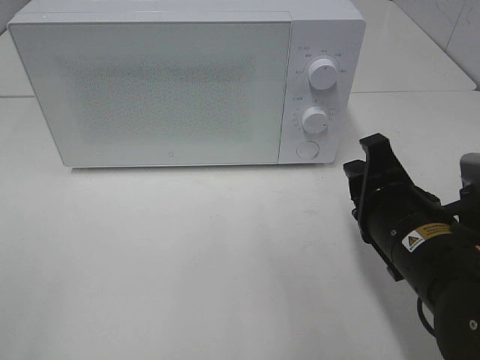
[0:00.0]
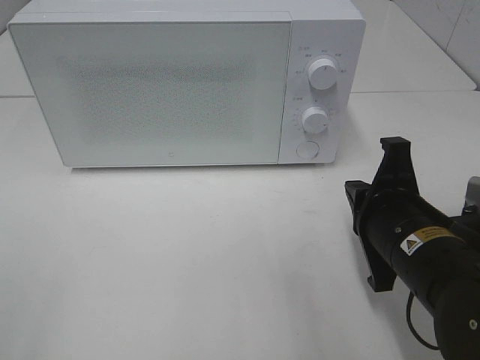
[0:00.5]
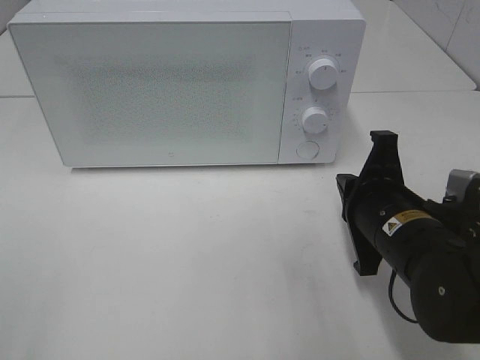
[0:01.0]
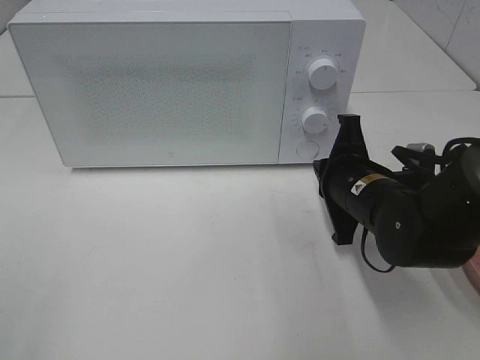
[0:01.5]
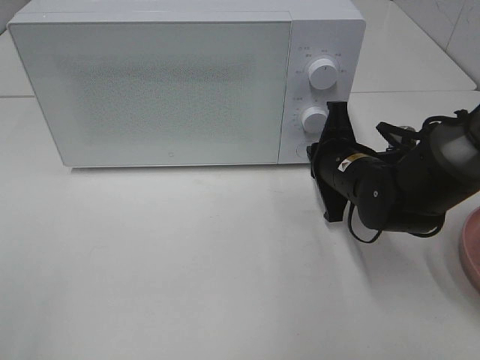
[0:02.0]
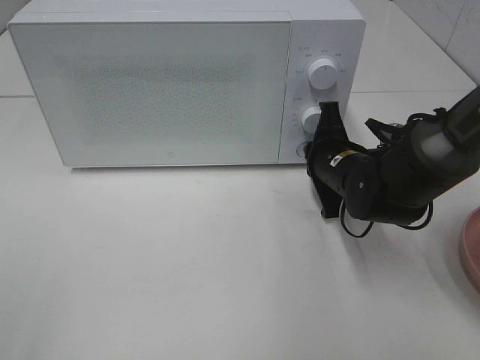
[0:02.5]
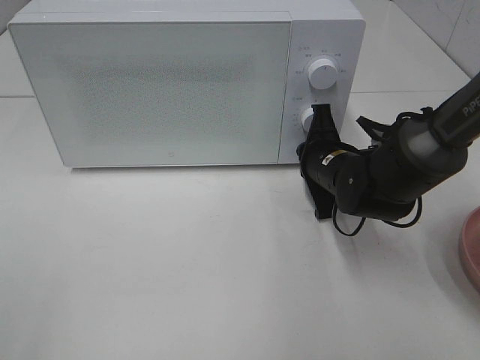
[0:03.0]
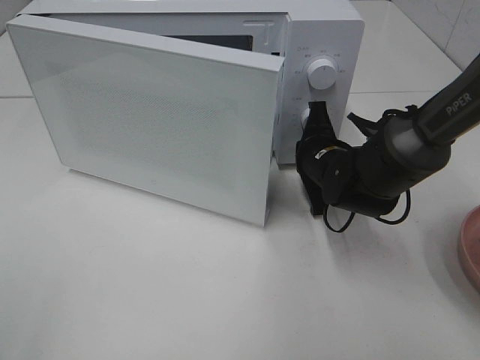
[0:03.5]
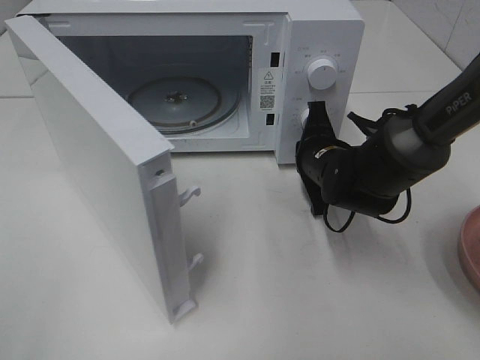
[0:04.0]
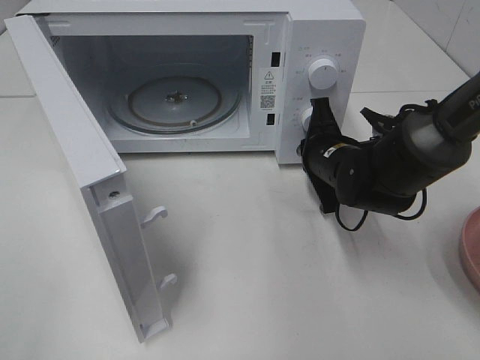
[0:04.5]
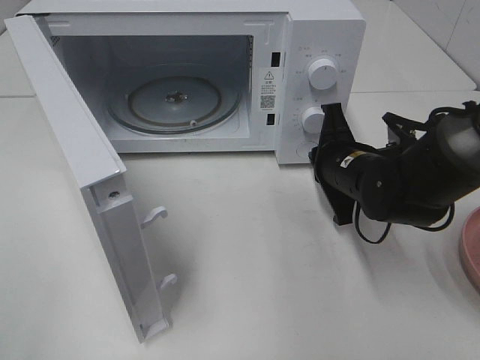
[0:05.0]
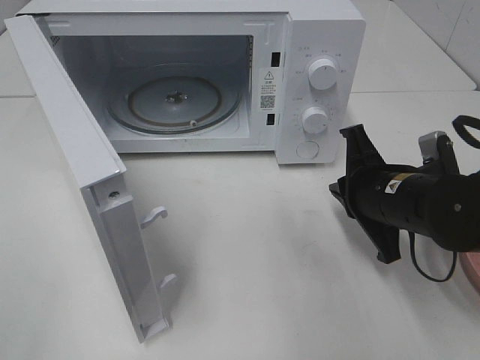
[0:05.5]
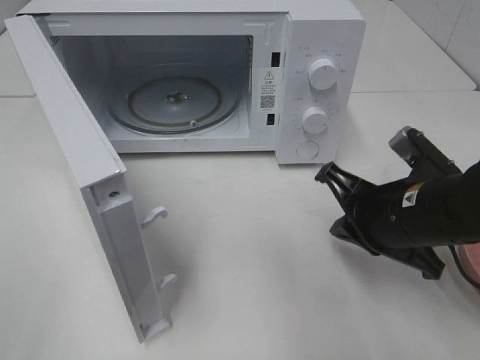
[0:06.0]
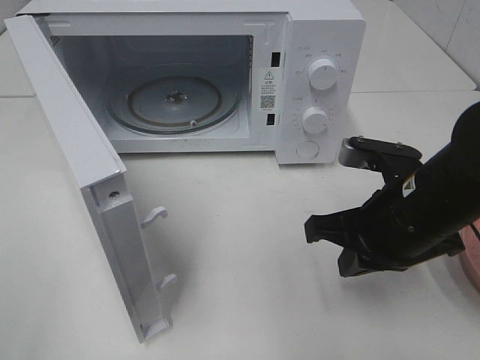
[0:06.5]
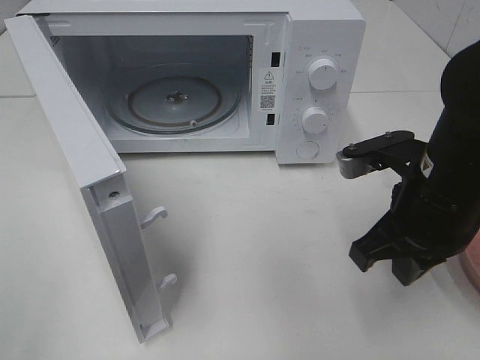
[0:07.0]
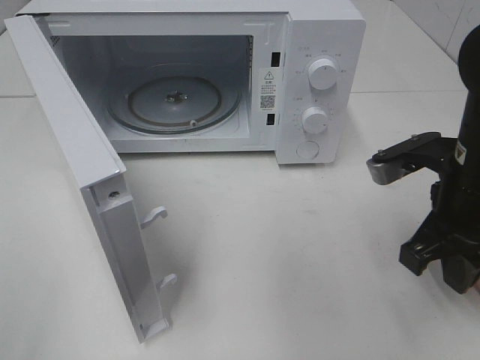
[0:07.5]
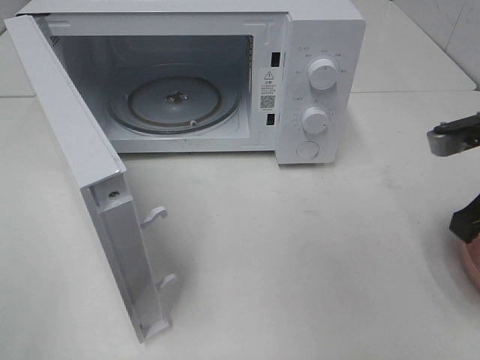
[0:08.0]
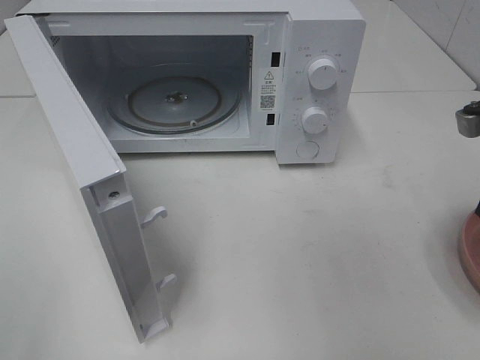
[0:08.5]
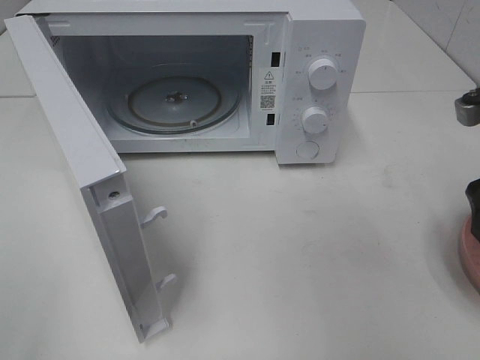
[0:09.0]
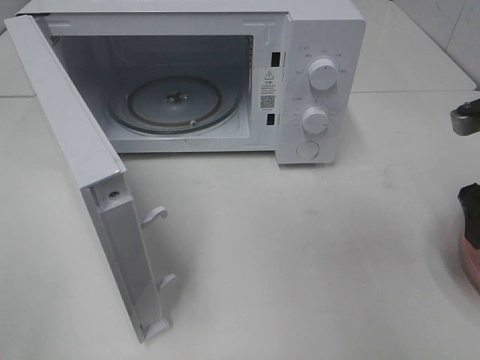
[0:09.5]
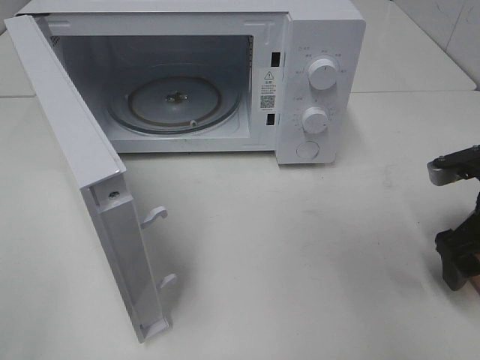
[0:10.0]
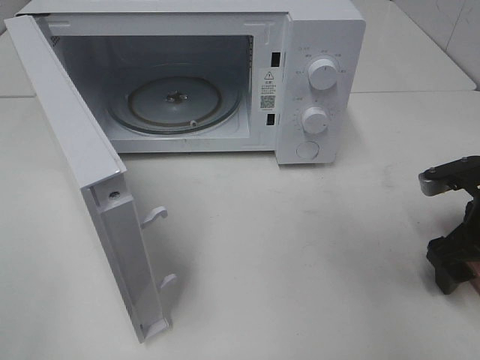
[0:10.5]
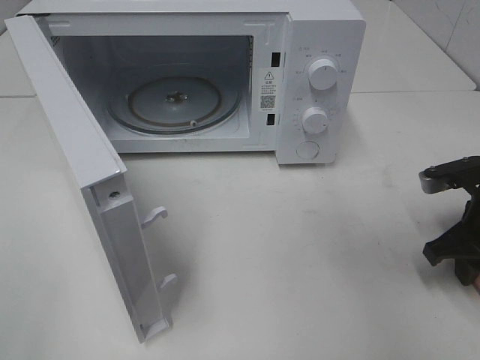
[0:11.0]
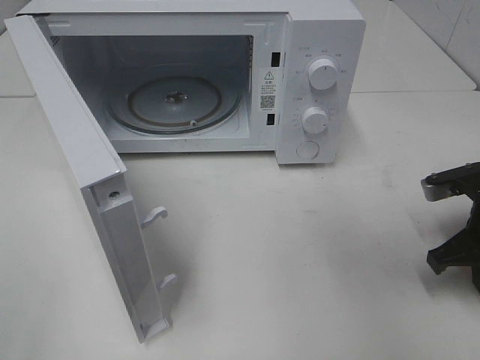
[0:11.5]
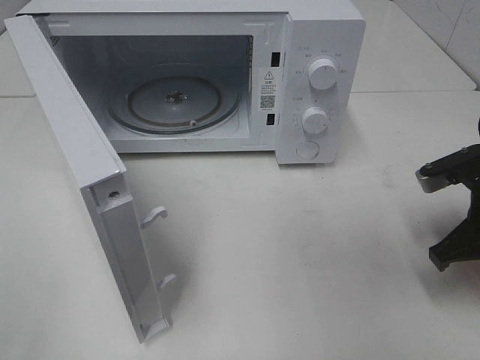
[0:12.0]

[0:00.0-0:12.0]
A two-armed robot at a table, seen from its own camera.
Task of the whole recording: Heat the burger.
Step, 0:00.0 to 0:05.0: Right hand: press the switch.
Step, 0:05.5 to 0:11.5: Right hand: grab the plate with the hamburger.
0:00.0 to 0:02.0: The right gripper travels forward by approximately 15 cm, and closes.
0:04.0 to 0:06.0: The right gripper moves backward and upward, about 15 cm.
0:06.0 to 0:08.0: The right gripper is displaced to the right and upward by about 10 cm.
0:08.0 to 0:10.0: The right gripper goes approximately 10 cm downward, and opens up.
0:10.0 to 0:12.0: The right gripper closes up.

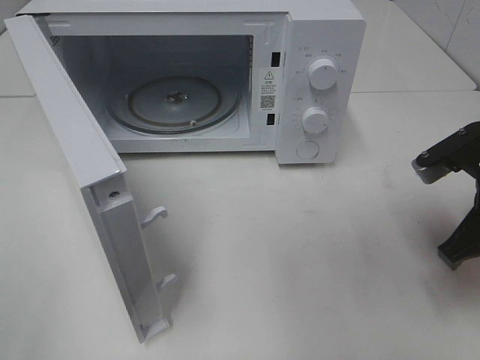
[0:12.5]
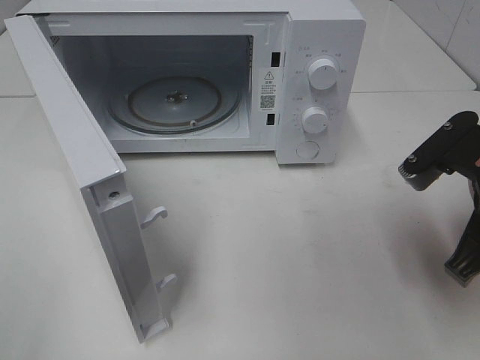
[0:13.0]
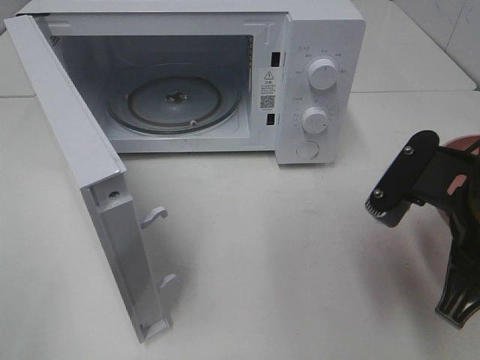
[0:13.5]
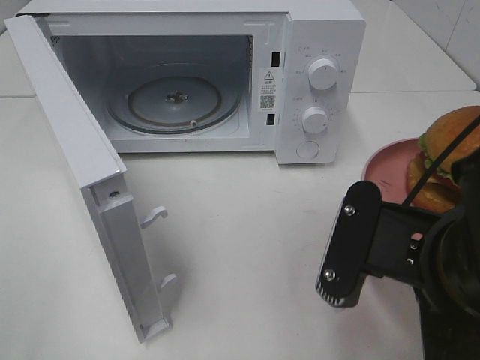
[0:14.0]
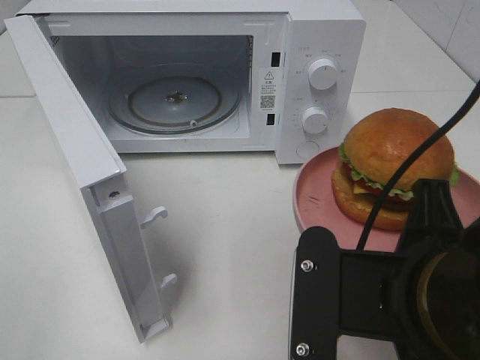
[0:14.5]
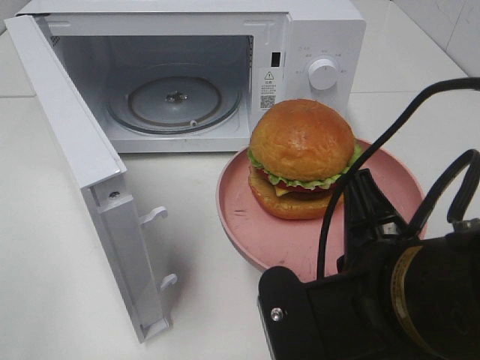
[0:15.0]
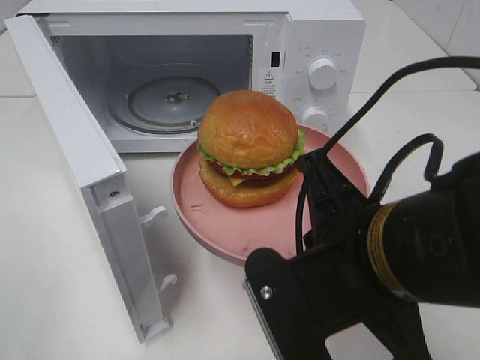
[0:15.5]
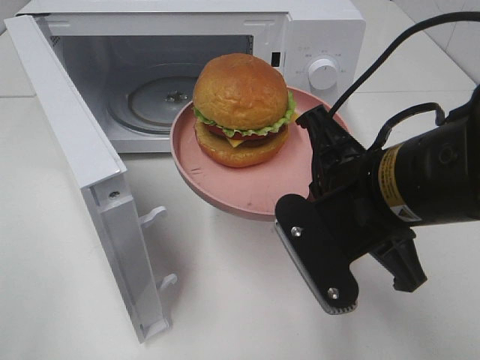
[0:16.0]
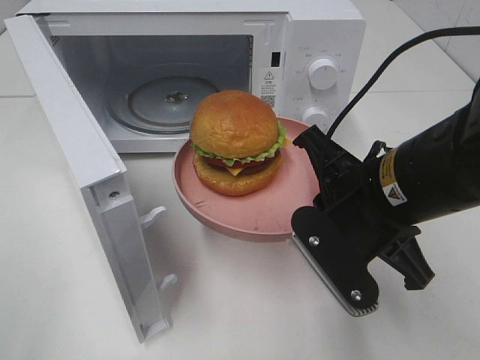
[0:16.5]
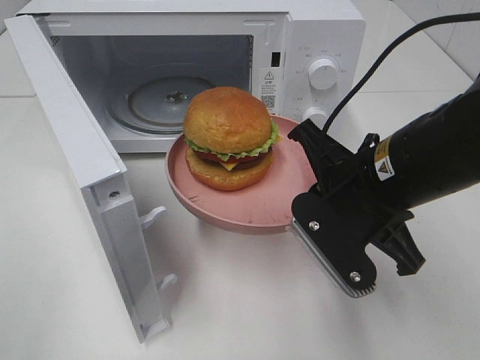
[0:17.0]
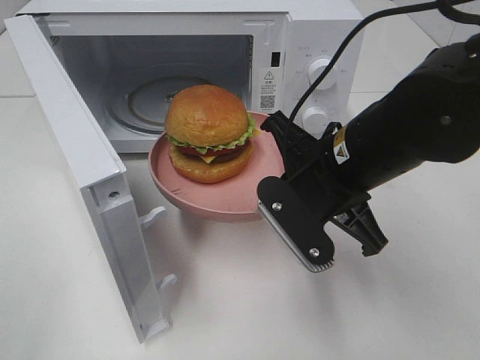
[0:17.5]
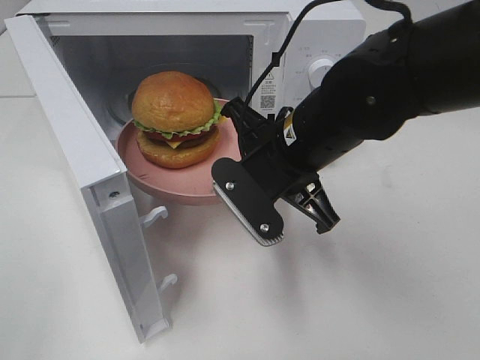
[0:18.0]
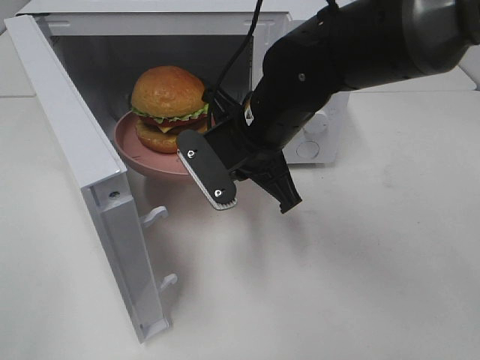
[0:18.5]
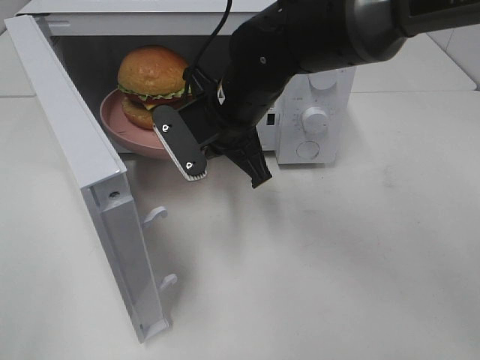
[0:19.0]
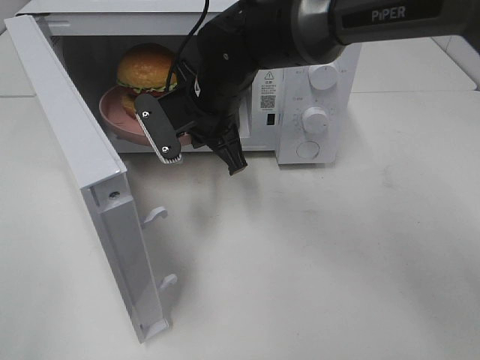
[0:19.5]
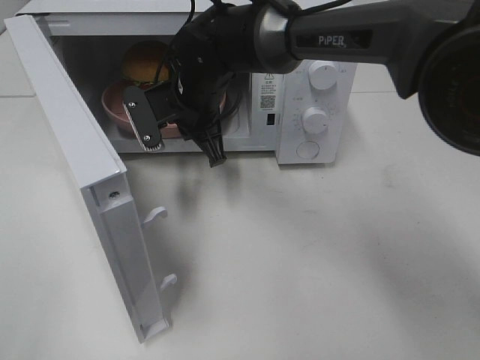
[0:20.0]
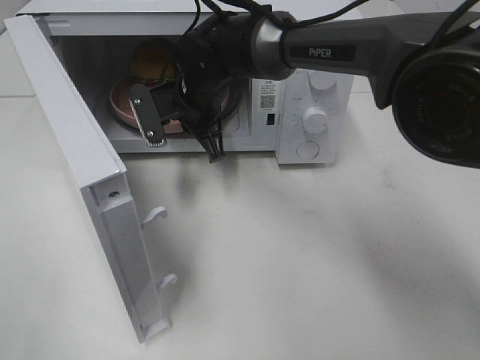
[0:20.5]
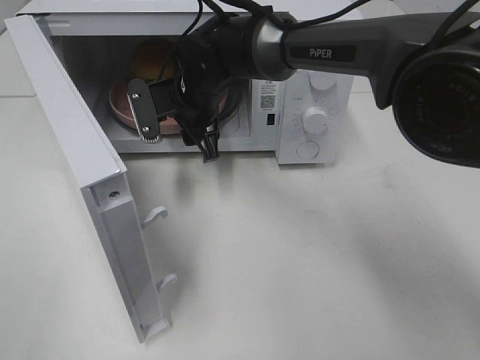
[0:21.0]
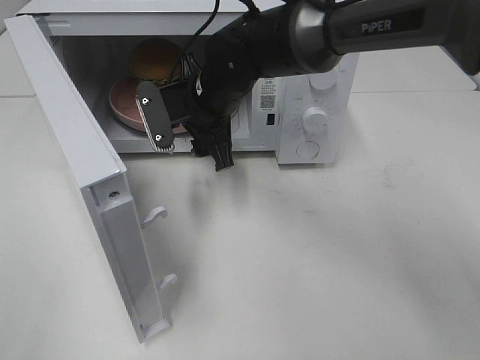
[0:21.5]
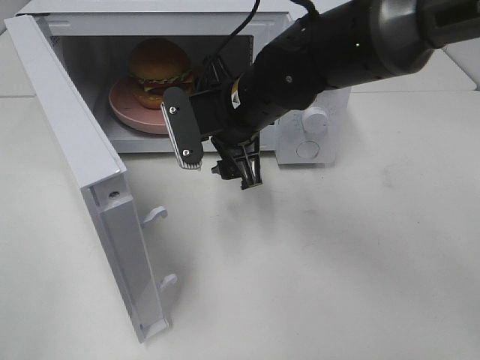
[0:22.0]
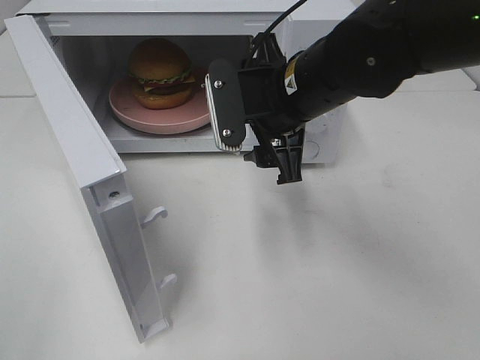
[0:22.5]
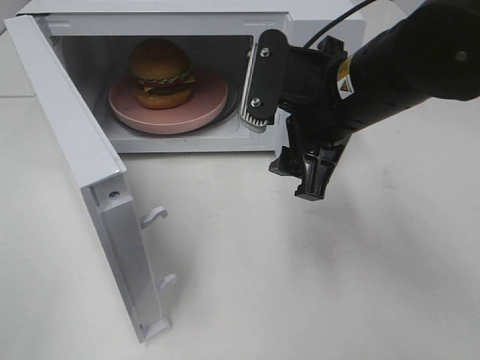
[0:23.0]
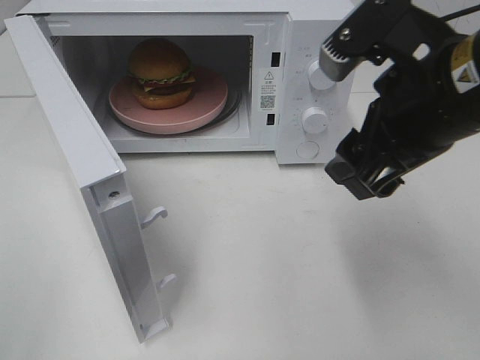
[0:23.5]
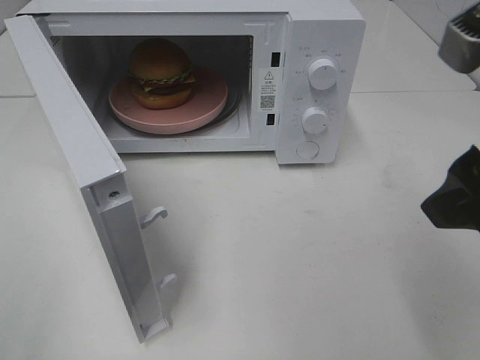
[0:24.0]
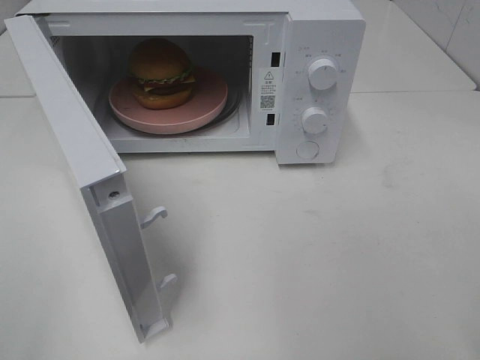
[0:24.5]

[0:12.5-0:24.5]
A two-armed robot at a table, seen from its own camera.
Task of the whole recording: Heat the burger.
Step, 0:12.5 to 0:21.0: Right hand: place the plate in the microwave.
0:12.5 to 0:14.5: The right gripper goes roughly 20 cm to the left and backward.
0:14.5 to 0:16.5: The right gripper is displaced forward by some 10 cm.
0:16.5 to 0:18.5: The right gripper is displaced forward and to the left by approximately 15 cm.
0:18.5 to 0:20.5: The right gripper moves forward and to the left, about 15 cm.
0:20.5 to 0:22.5: The right gripper is displaced backward, to the right and upward by roughly 15 cm, and opens its fingers.
0:22.5 to 0:24.5: The right gripper moves backward, to the right and upward, some 30 cm.

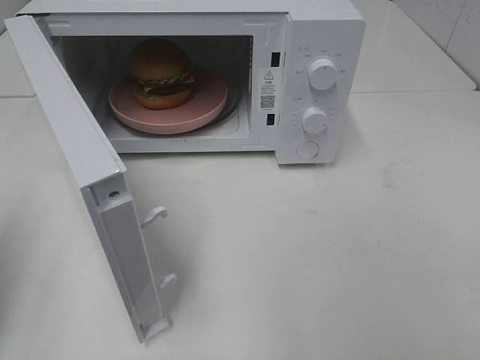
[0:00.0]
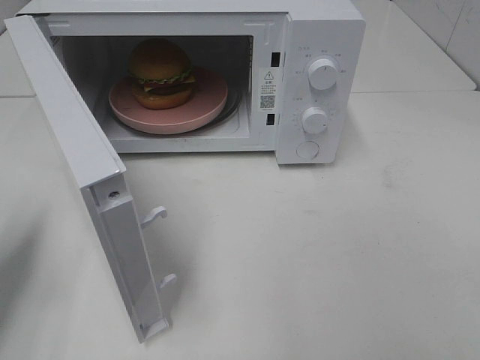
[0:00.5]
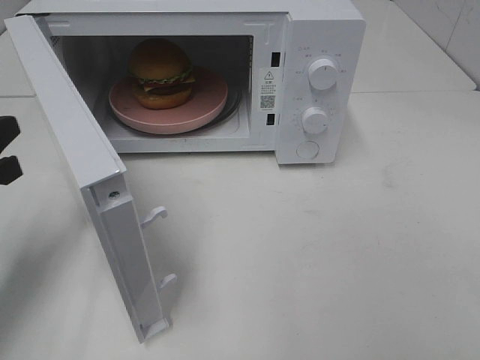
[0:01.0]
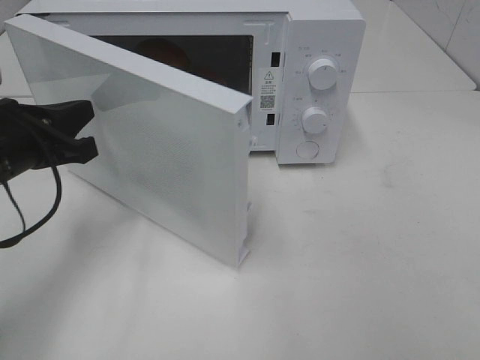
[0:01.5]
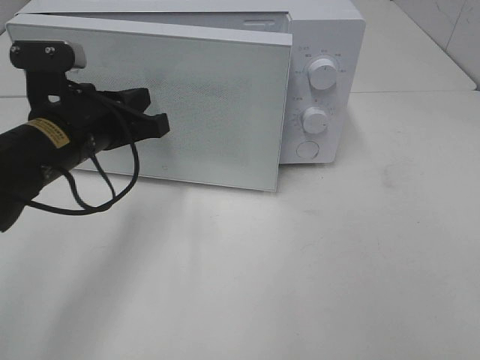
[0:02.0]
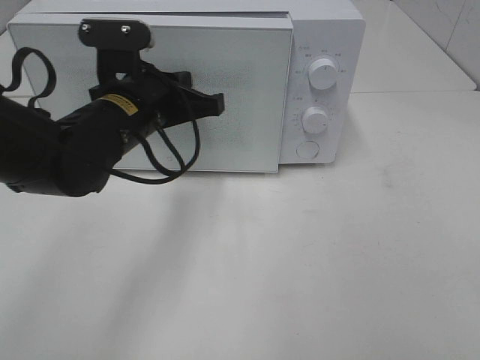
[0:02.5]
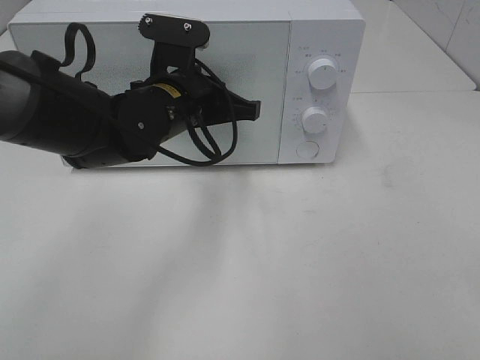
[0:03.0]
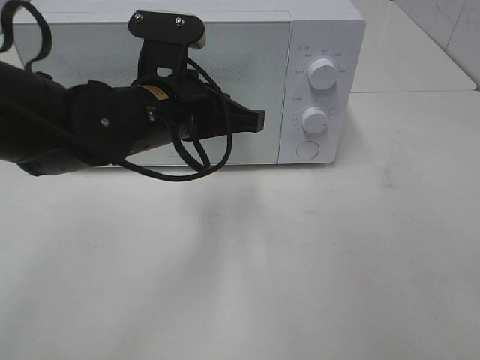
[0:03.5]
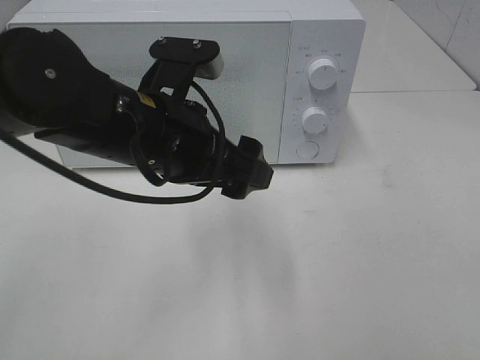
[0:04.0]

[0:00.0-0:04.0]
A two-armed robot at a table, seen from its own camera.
Task of the whole recording: Heat the burger.
Step, 0:00.0 to 0:03.5: Left hand: close the microwave door.
0:00.0 to 0:02.0: The left gripper moves to the right, forward and downward, about 25 cm.
0:02.0 to 0:04.0: The left gripper heads to the right, covering some 10 cm, and opens its fingers.
